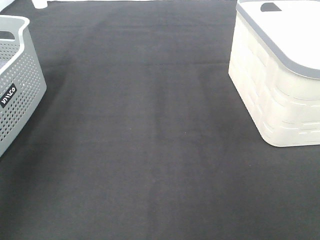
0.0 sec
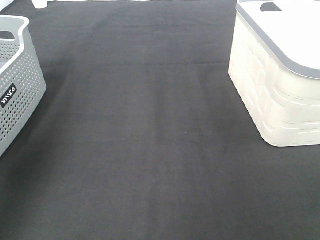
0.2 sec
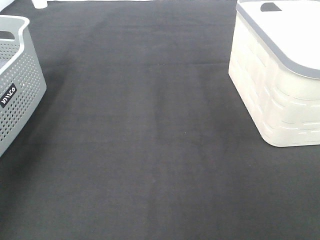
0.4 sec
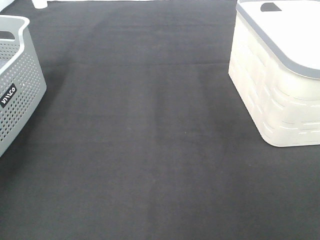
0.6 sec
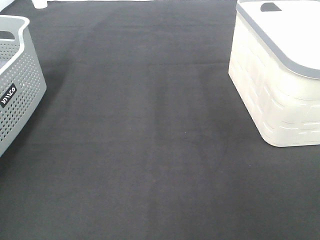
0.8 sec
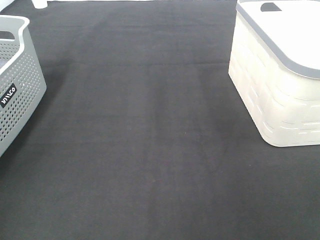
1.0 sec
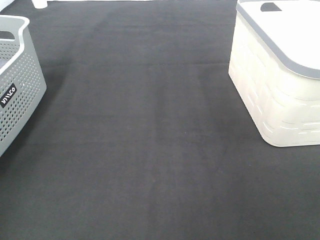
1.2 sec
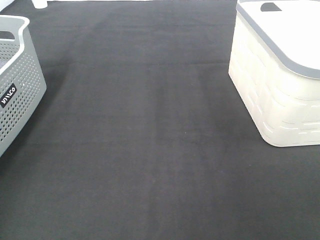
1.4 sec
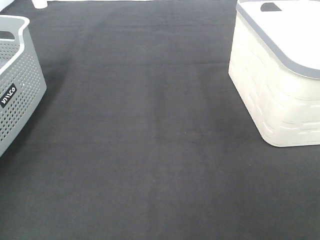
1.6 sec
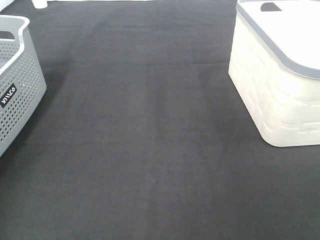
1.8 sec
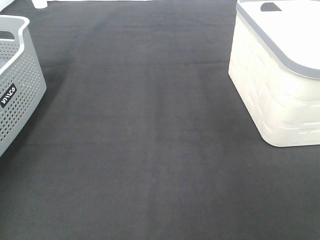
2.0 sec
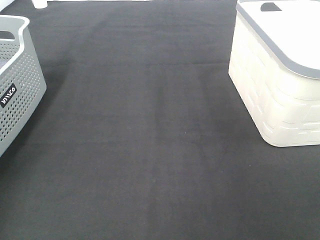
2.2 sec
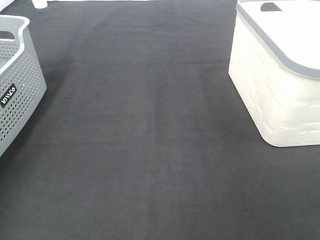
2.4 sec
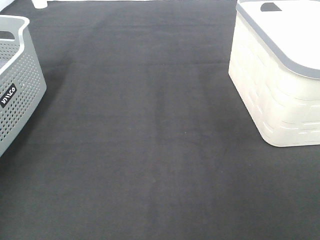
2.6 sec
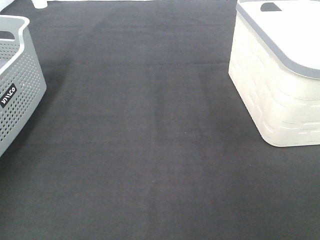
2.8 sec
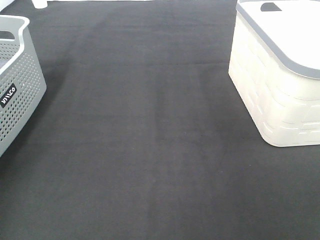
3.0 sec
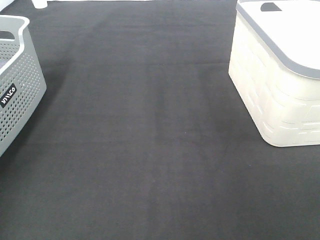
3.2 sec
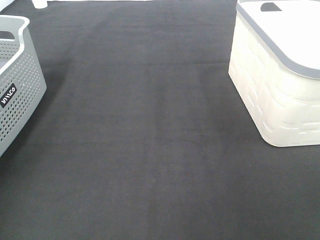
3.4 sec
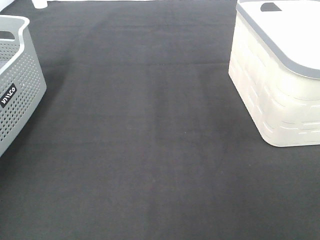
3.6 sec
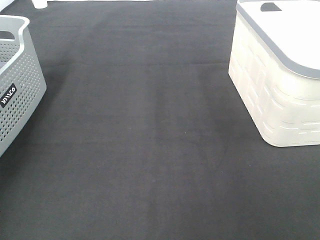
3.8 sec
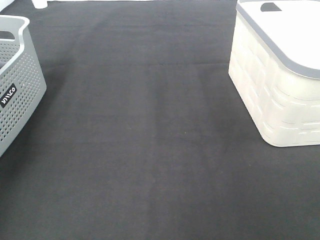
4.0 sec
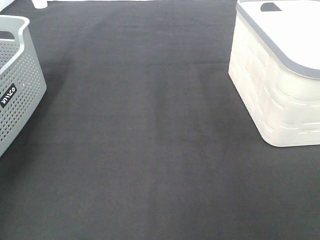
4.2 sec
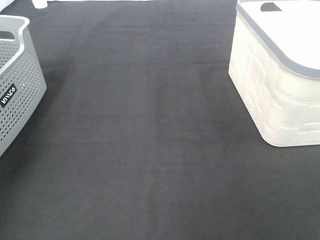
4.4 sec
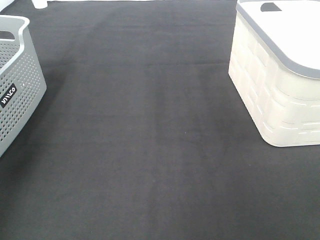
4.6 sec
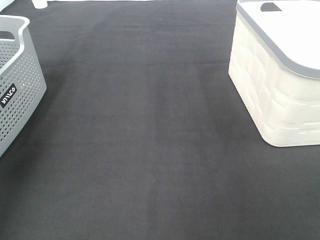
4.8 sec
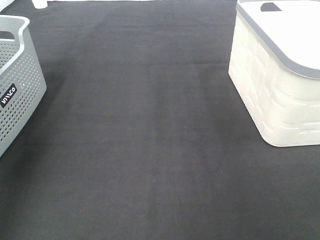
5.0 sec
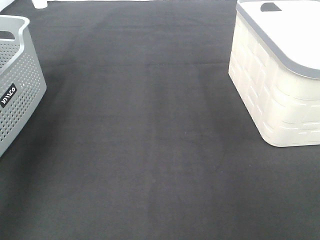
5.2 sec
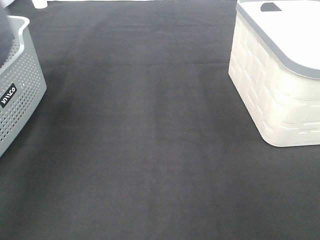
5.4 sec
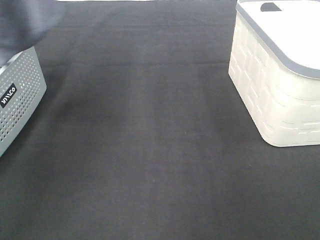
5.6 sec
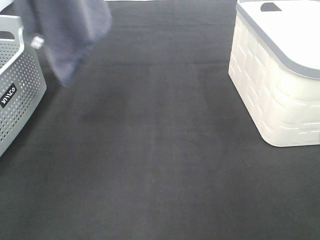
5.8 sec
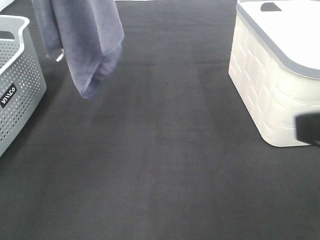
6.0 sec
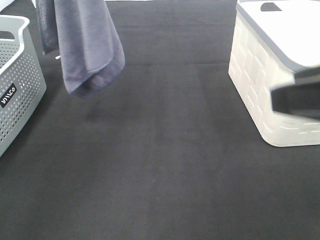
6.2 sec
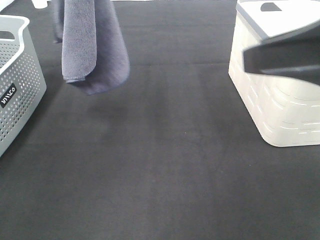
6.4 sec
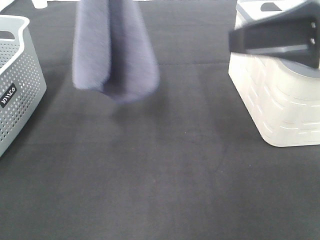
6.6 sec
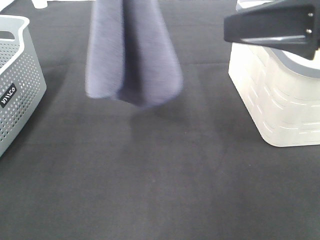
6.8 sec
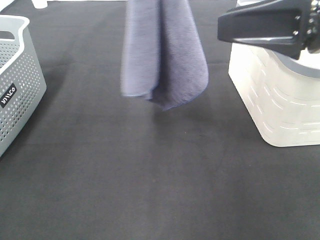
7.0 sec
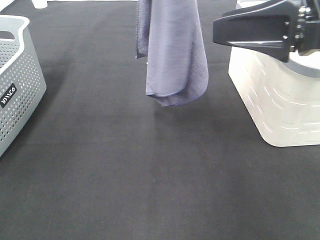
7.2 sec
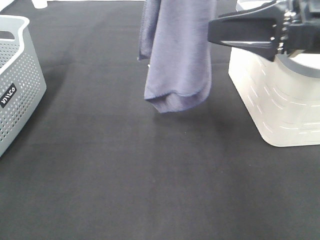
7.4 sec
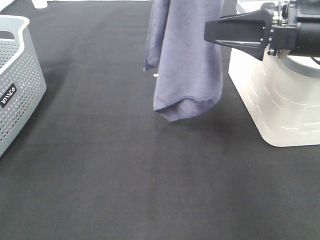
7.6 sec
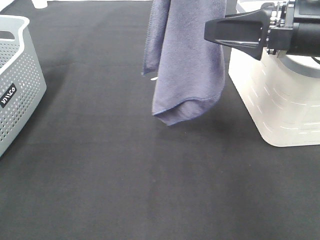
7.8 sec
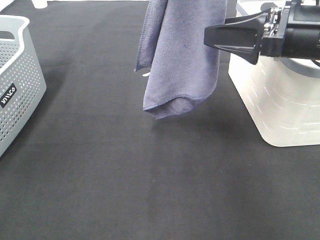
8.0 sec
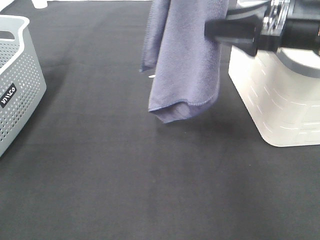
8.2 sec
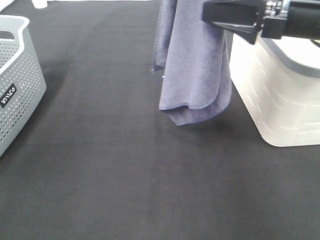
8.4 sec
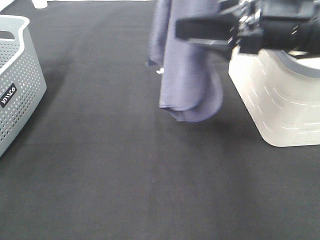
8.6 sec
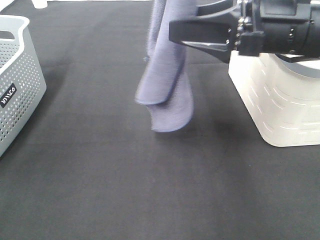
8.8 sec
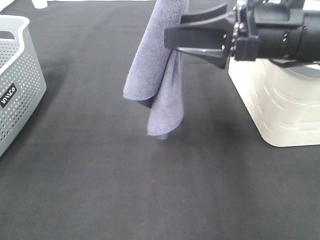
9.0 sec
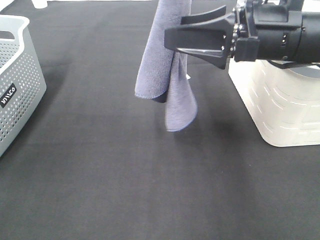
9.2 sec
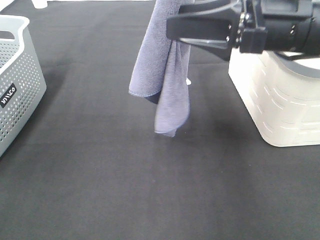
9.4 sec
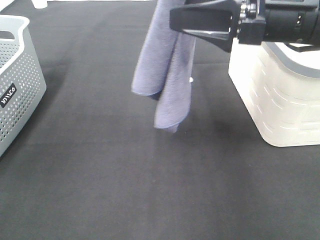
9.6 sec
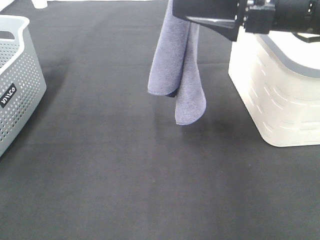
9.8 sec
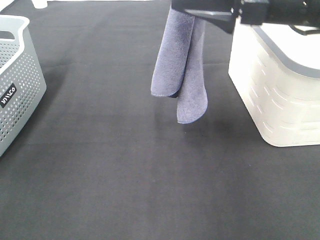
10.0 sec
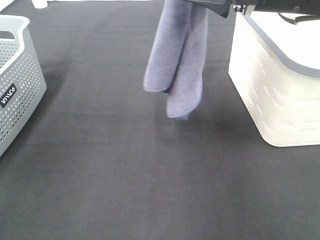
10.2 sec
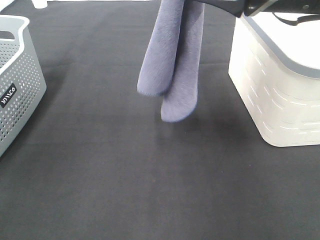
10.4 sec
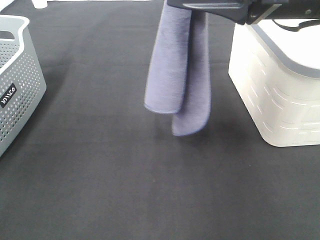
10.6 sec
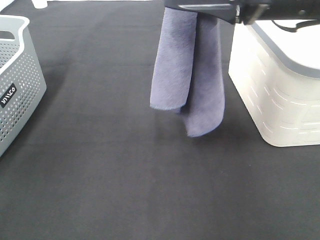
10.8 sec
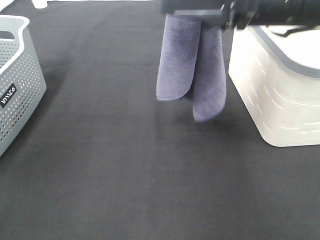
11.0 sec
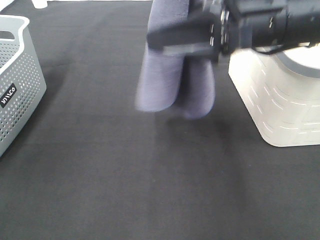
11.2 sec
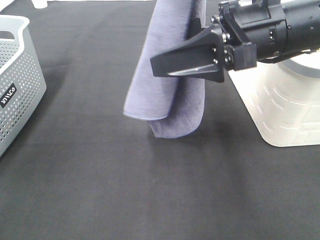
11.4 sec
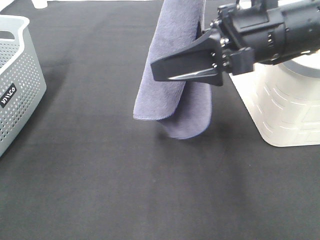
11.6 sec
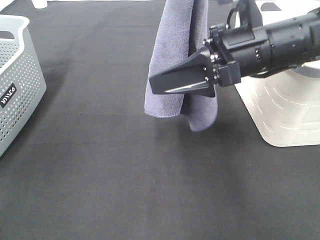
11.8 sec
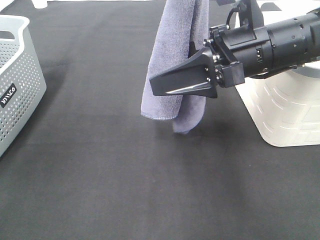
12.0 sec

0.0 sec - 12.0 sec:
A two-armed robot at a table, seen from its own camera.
Task of the whole recording: Remove the towel and place it.
Step, 5.0 sec - 11.2 sec: Right hand: grab a corner of the grey towel and straighten it.
0.0 sec - 1.6 sec: The left gripper goes approximately 25 cm downward, forward and to the left.
4.4 sec - 6.0 sec: The left gripper heads to the right, upward and forward, covering about 20 cm, while the right gripper travels forward by roughly 10 cm.
6.0 sec - 7.6 sec: The left gripper moves to the right, approximately 15 cm; the right gripper travels forward by approximately 15 cm.
7.6 sec - 9.0 sec: The right gripper moves roughly 5 cm.
9.0 sec - 10.4 sec: The right gripper moves upward, about 5 cm.
10.4 sec - 12.0 sec: The right gripper shifts approximately 10 cm downward.

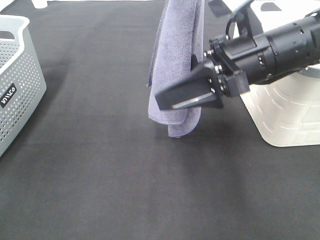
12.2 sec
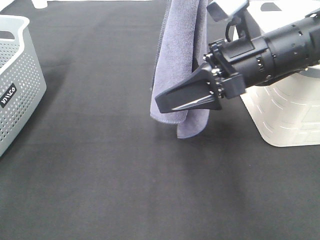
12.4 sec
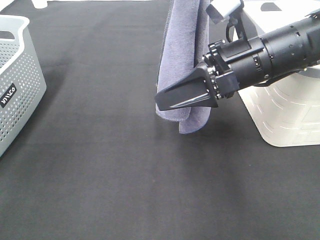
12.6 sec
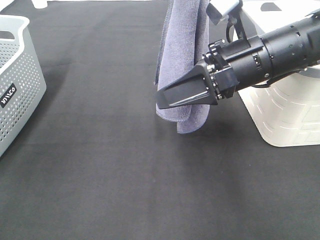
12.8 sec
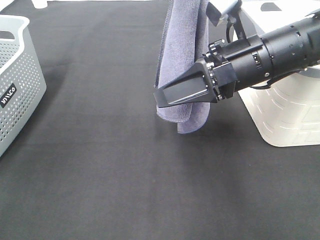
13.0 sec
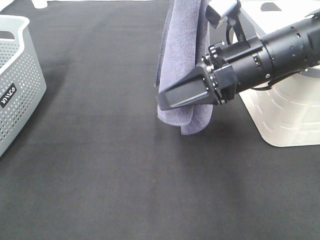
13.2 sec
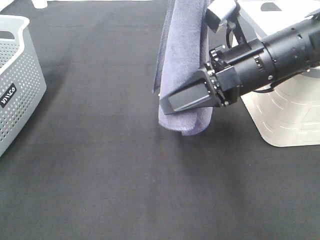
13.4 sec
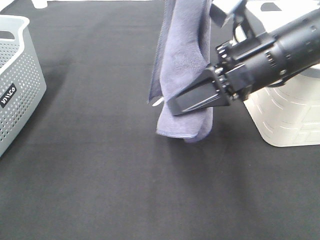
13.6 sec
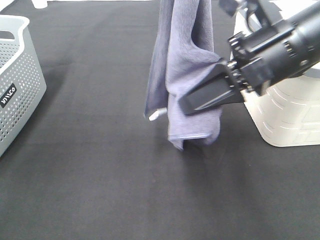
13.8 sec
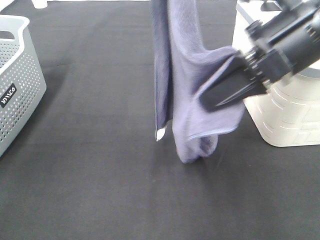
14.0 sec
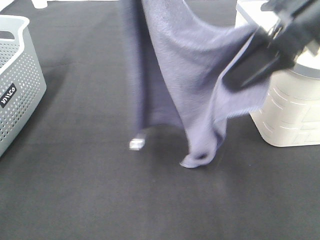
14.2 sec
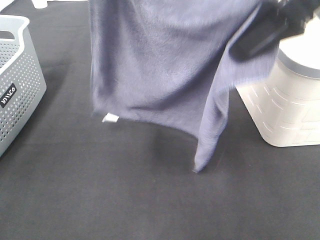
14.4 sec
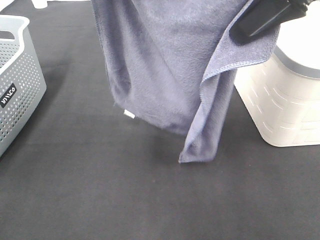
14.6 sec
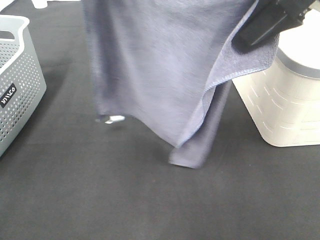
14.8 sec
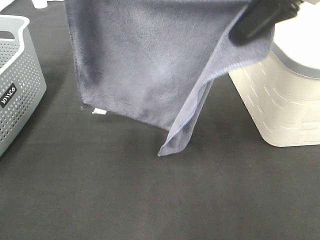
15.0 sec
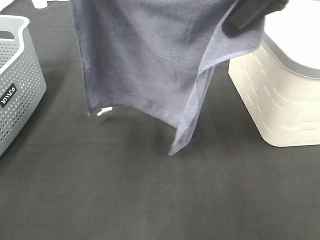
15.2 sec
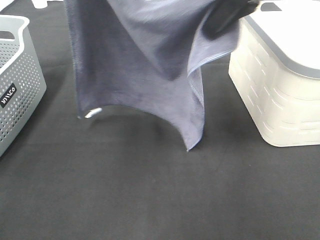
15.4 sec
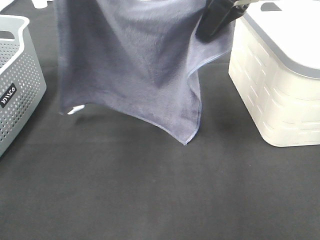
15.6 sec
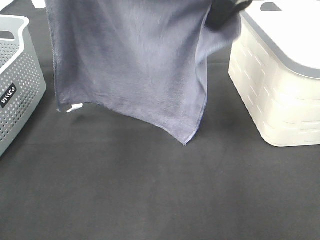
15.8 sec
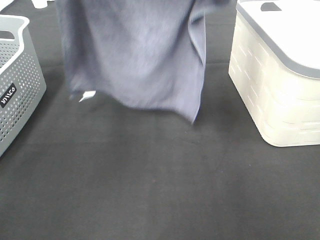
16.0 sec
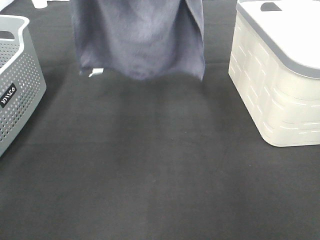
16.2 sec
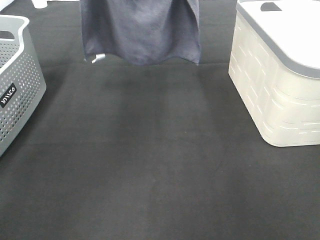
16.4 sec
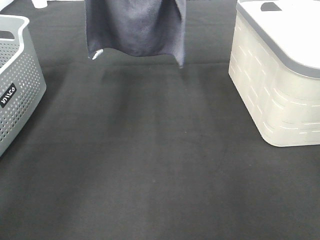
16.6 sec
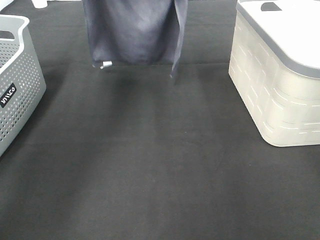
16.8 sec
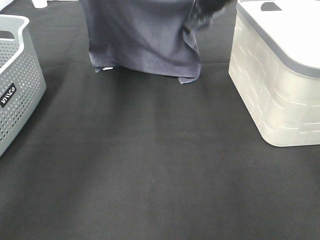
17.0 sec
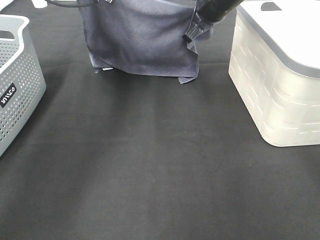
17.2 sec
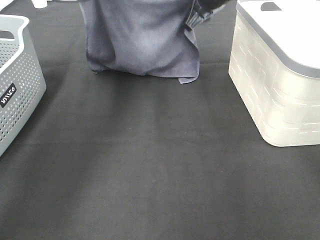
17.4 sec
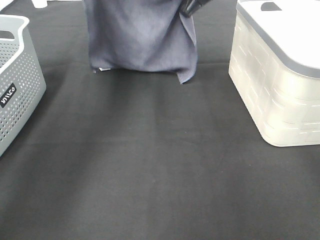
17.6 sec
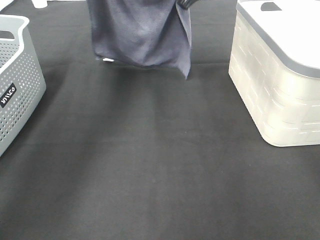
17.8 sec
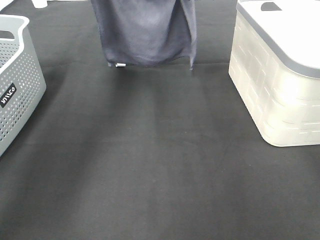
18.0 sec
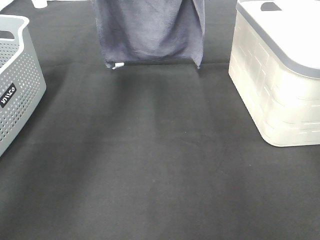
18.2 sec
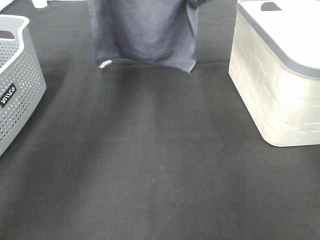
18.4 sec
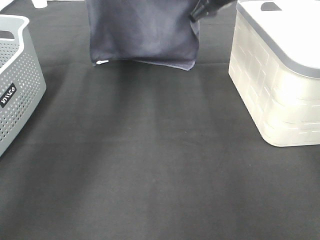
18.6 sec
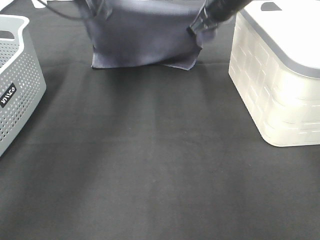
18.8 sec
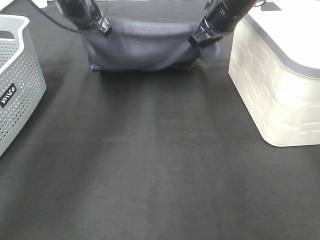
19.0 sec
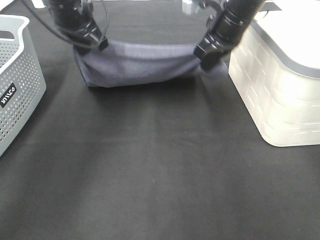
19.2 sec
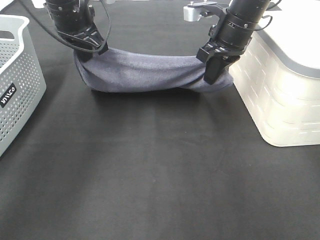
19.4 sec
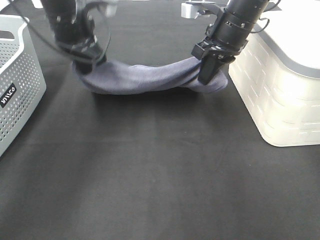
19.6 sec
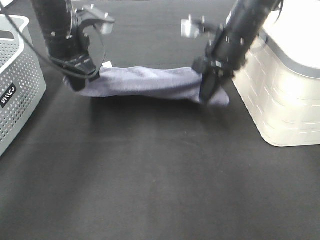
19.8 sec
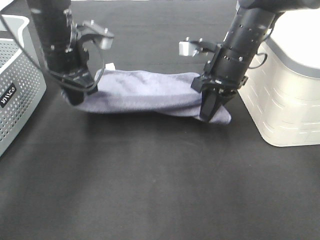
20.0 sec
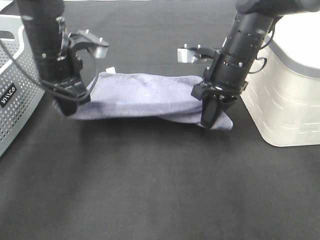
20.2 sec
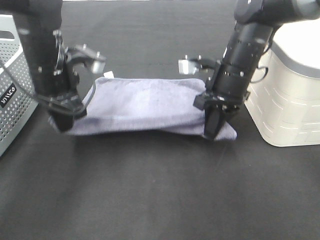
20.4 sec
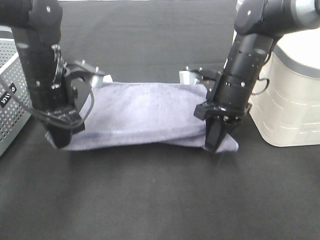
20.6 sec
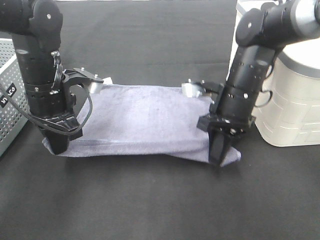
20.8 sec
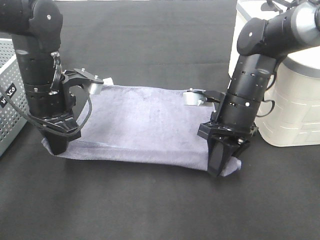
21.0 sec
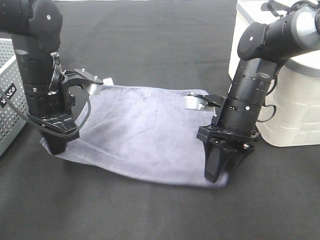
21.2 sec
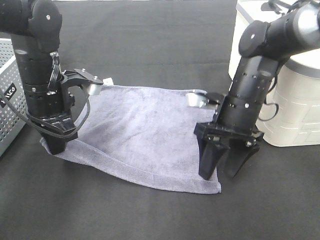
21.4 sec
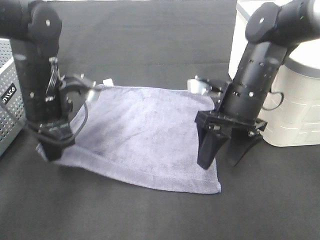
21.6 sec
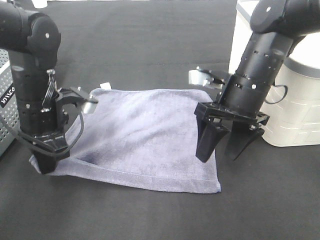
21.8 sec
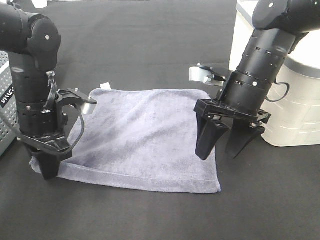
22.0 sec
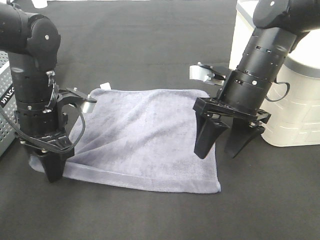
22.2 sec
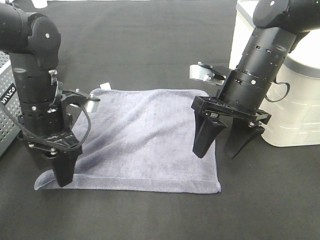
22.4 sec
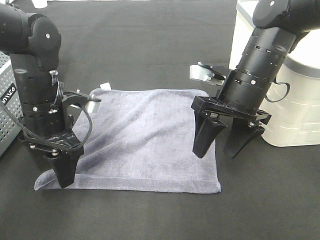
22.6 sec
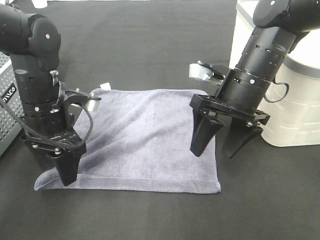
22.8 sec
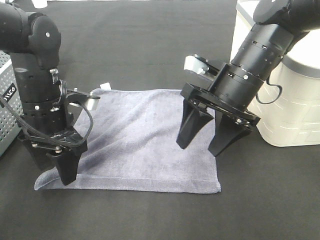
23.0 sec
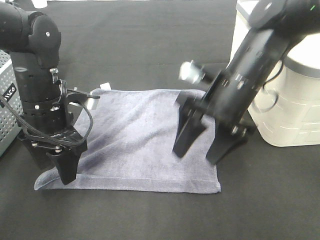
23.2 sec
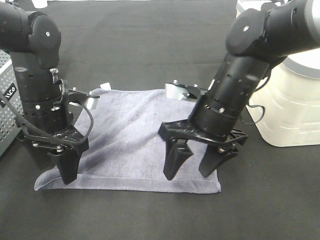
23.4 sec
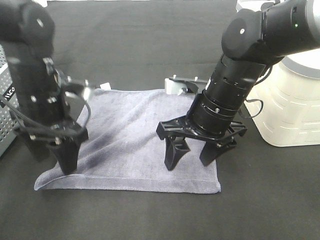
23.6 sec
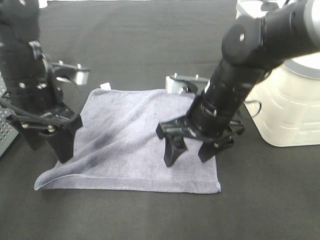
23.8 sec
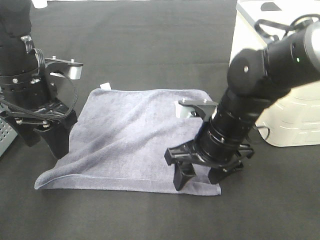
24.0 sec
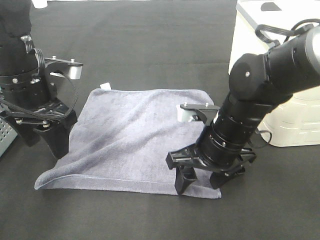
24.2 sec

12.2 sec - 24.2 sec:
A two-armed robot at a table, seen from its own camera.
Task of the whole recording: Remove the towel and place it.
Step, 12.2 sec - 16.0 sec: Right hand: spread the grey towel flat on the table.
Step, 12.2 sec - 16.8 sec: Left hand: spread the grey towel flat on the table.
12.2 sec - 13.8 sec: The right gripper shifts by approximately 5 cm, and closes up.
13.8 sec - 15.2 sec: The right gripper travels upward and forward by some 10 cm. The left gripper shifts some 5 cm to the left.
15.2 sec - 16.6 sec: The right gripper travels forward and to the left by roughly 15 cm; the left gripper heads forward, covering roughly 15 cm.
16.6 sec - 18.2 sec: The left gripper is displaced downward by roughly 5 cm; the right gripper shifts roughly 5 cm forward.
18.2 sec - 19.8 sec: The grippers both shift downward and backward by roughly 15 cm.
19.8 sec - 21.2 sec: The grippers both shift backward and downward by about 10 cm. The right gripper opens up.
21.2 sec - 22.6 sec: The right gripper goes about 5 cm upward, while the left gripper opens.
22.6 sec - 24.2 sec: The left gripper moves upward, approximately 5 cm; the right gripper shifts roughly 10 cm downward and backward.
